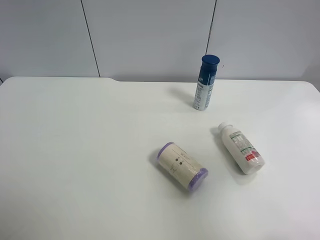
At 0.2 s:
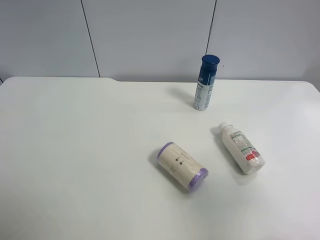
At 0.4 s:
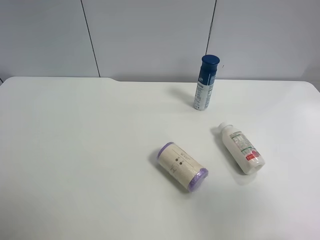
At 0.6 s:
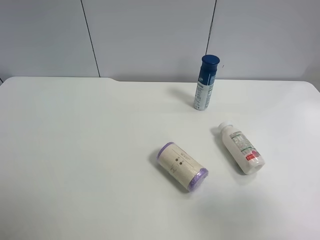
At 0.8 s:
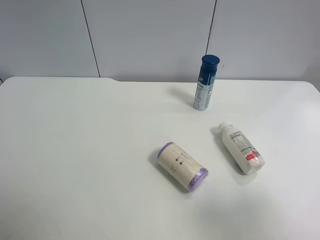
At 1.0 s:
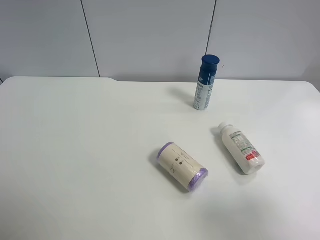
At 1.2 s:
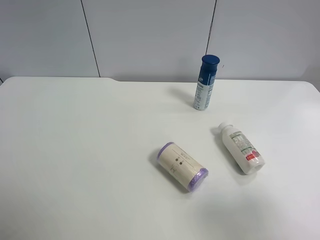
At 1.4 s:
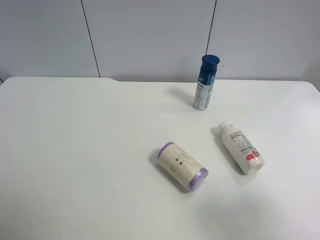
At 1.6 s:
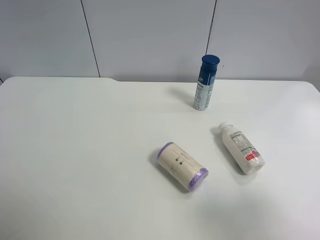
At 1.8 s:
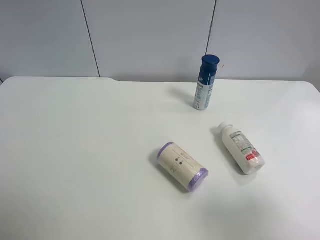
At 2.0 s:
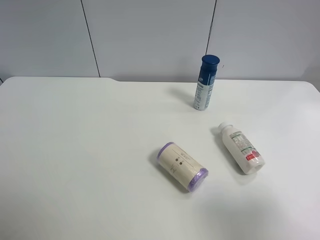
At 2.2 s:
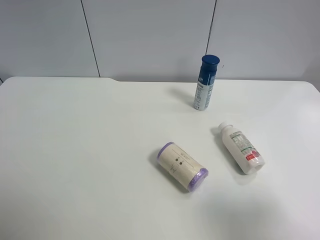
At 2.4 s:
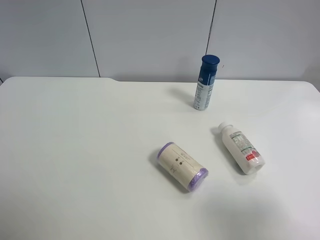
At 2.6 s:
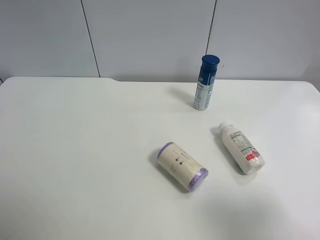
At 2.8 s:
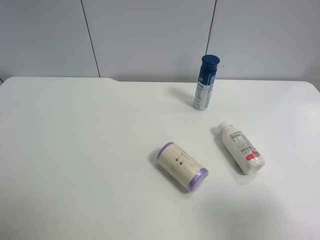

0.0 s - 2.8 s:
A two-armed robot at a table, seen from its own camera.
Task of the whole recording: use the left gripper to pick up the item and transfer it from the left gripper to the right gripper.
0.0 s - 1.4 s: The right gripper heads backward, covering about 10 cm.
